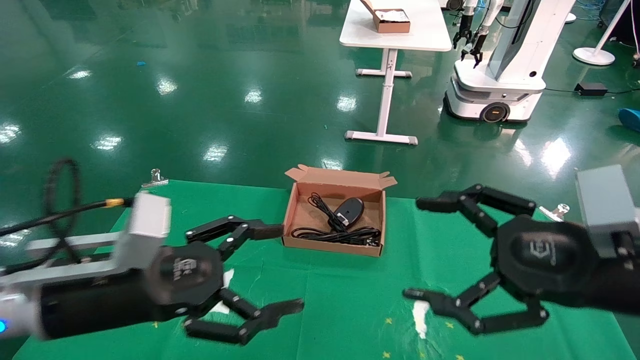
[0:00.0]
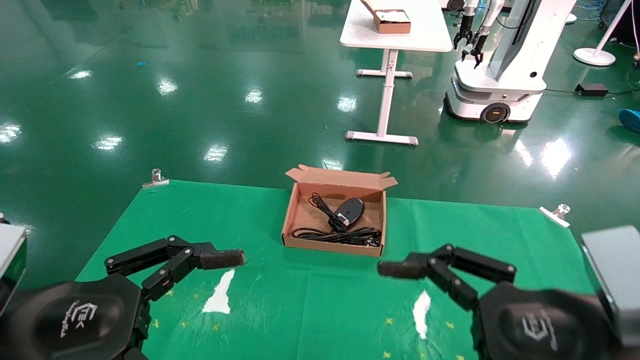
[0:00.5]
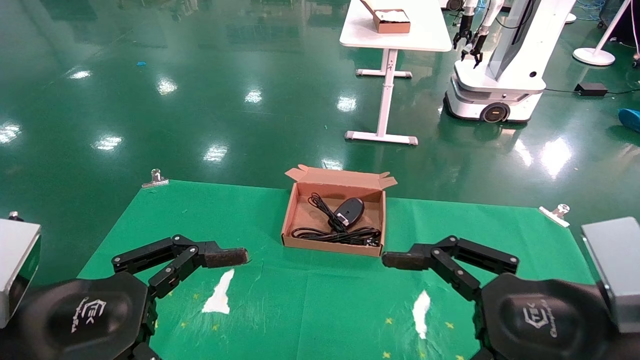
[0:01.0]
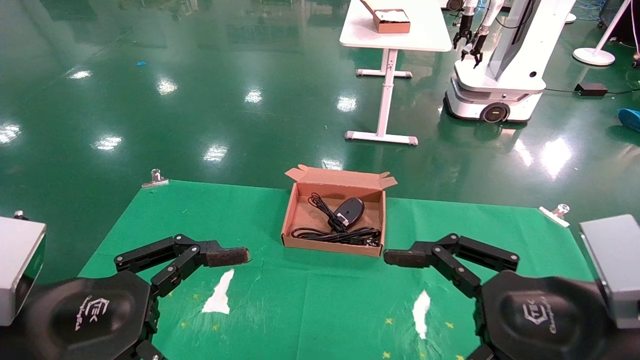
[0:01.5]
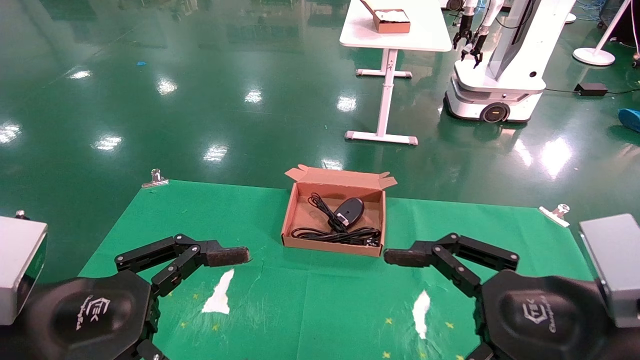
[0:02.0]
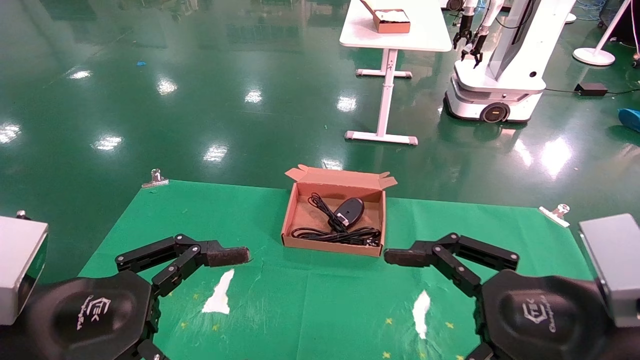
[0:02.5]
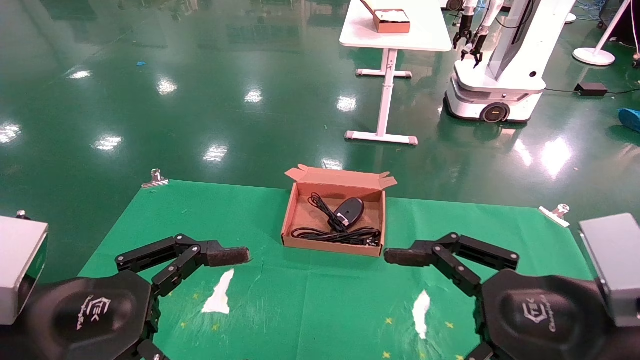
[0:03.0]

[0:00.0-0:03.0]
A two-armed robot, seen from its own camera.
0:00.0 to 0:01.5: The right gripper changes place by about 5 cm; the left gripper travels backward by some 5 cm.
0:01.5 to 0:03.0: Both grippers stay about where they are.
